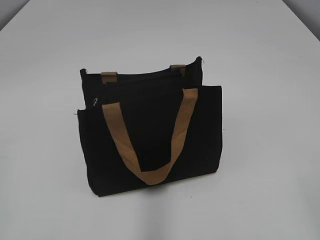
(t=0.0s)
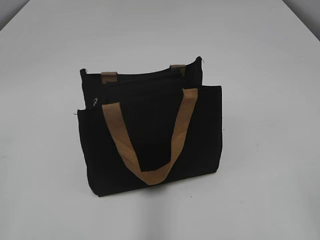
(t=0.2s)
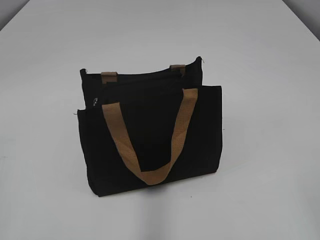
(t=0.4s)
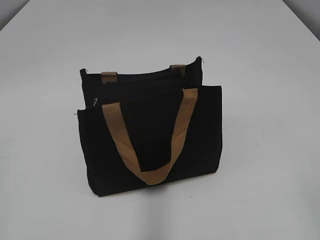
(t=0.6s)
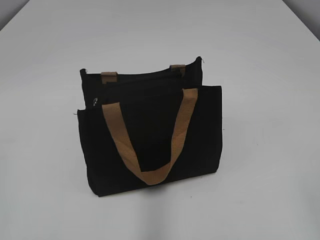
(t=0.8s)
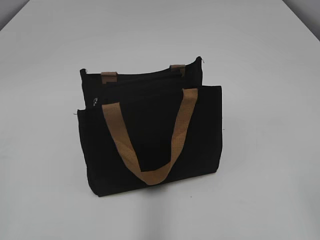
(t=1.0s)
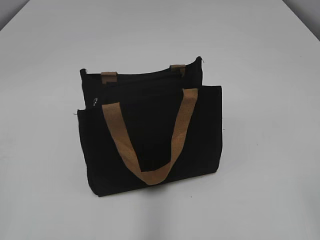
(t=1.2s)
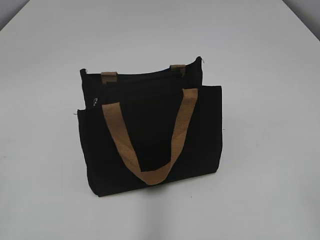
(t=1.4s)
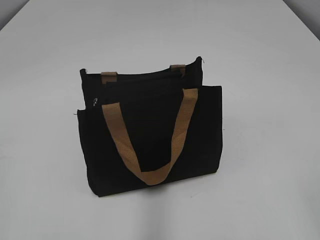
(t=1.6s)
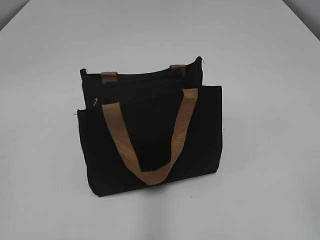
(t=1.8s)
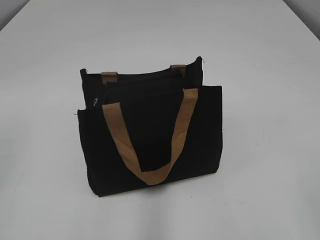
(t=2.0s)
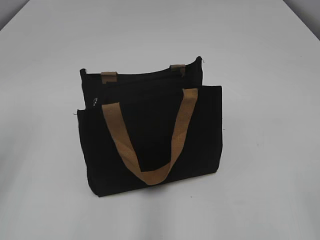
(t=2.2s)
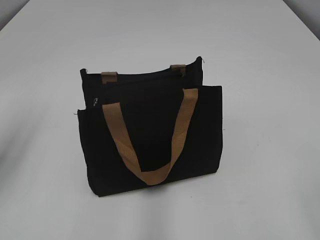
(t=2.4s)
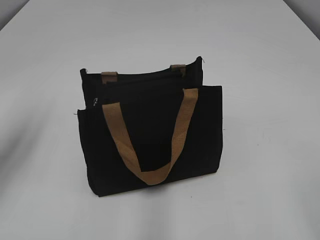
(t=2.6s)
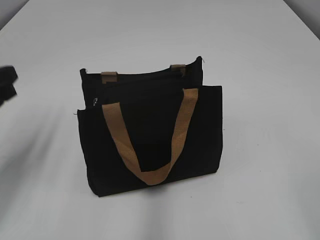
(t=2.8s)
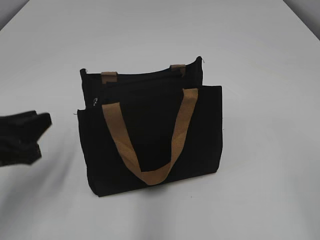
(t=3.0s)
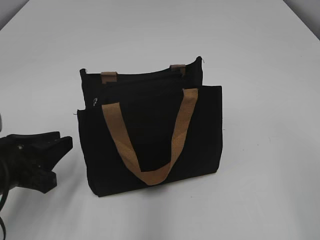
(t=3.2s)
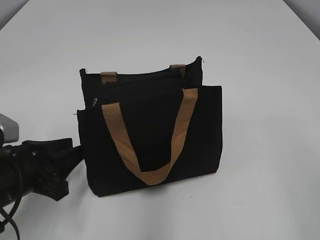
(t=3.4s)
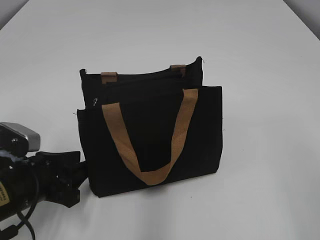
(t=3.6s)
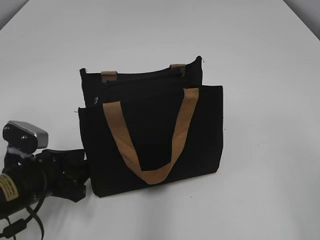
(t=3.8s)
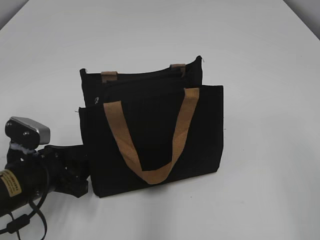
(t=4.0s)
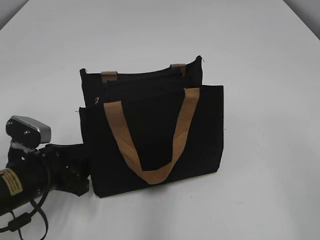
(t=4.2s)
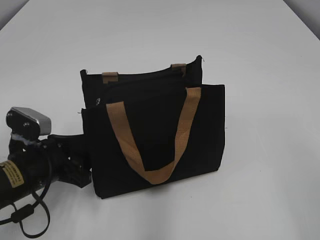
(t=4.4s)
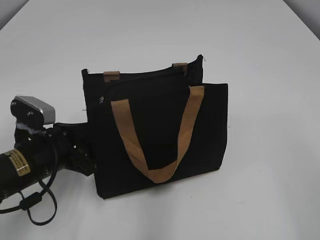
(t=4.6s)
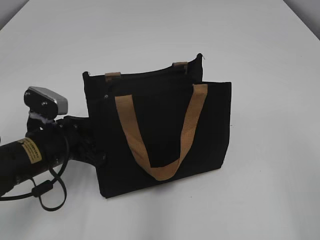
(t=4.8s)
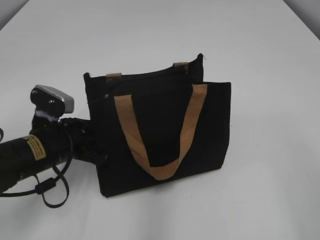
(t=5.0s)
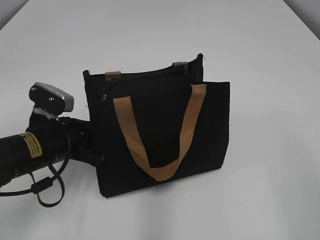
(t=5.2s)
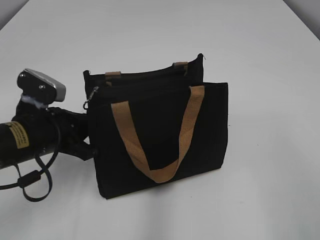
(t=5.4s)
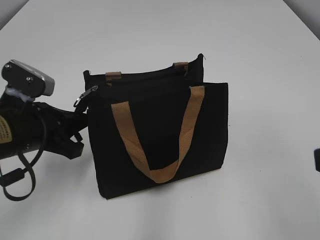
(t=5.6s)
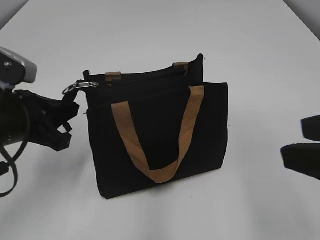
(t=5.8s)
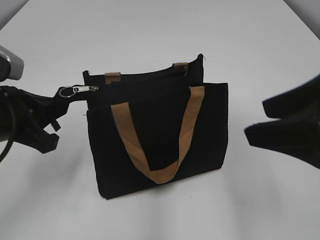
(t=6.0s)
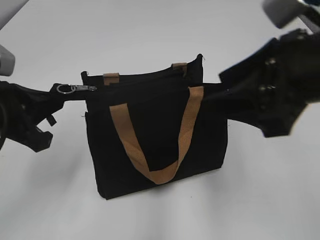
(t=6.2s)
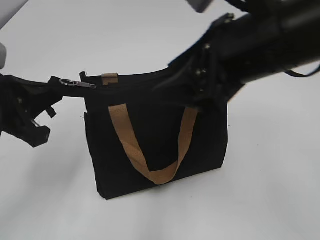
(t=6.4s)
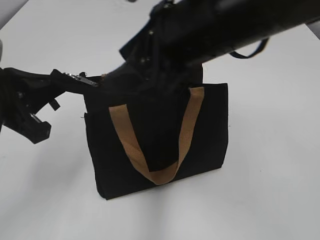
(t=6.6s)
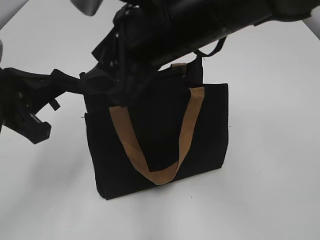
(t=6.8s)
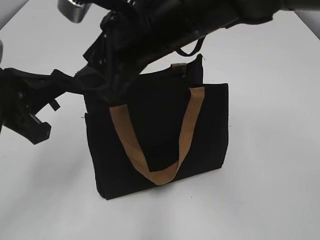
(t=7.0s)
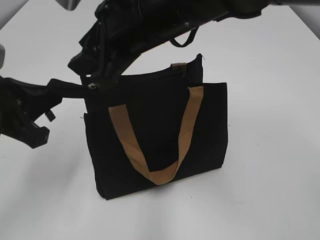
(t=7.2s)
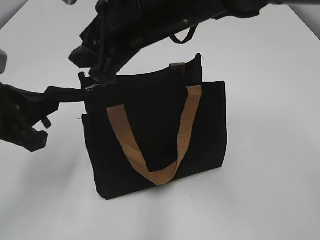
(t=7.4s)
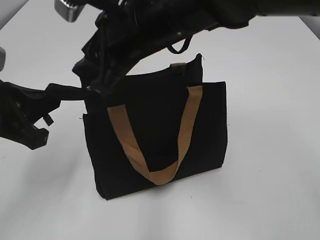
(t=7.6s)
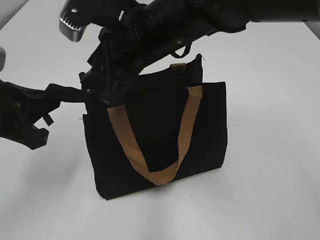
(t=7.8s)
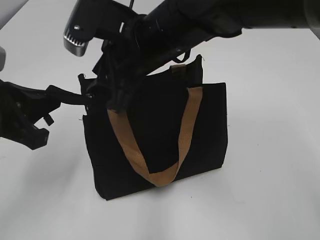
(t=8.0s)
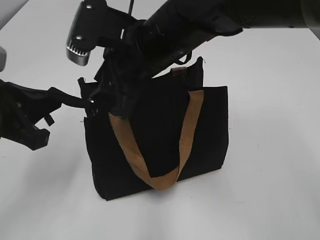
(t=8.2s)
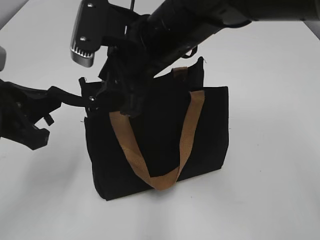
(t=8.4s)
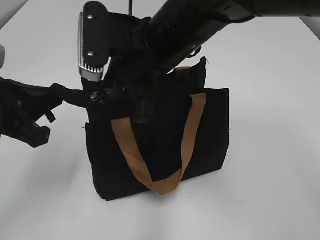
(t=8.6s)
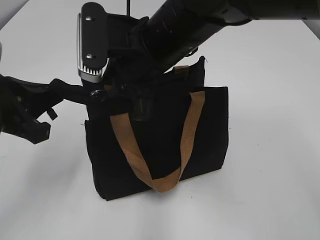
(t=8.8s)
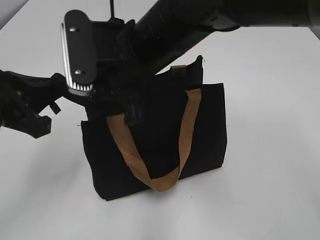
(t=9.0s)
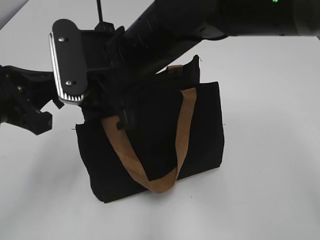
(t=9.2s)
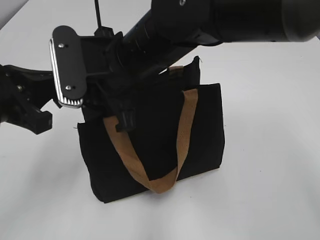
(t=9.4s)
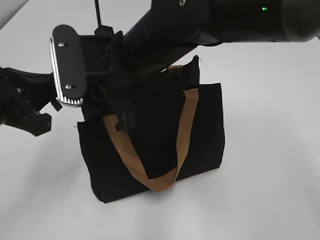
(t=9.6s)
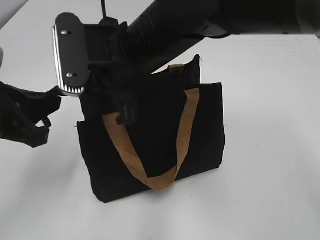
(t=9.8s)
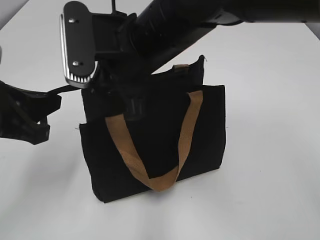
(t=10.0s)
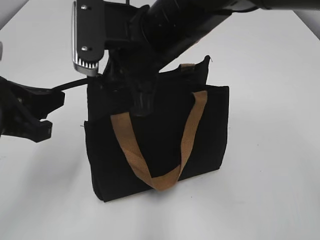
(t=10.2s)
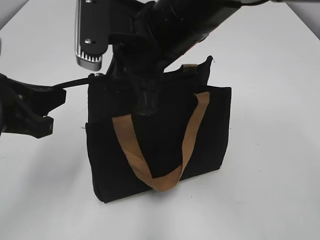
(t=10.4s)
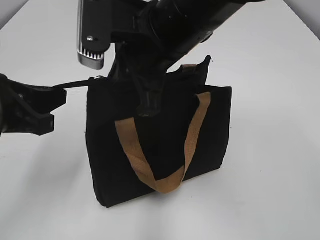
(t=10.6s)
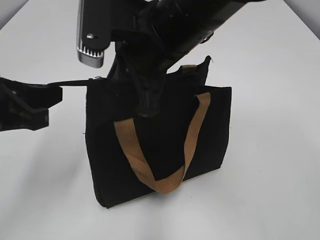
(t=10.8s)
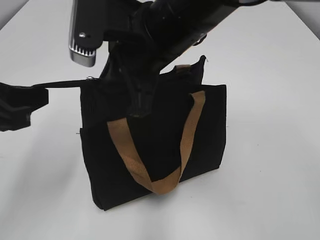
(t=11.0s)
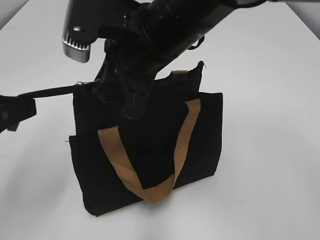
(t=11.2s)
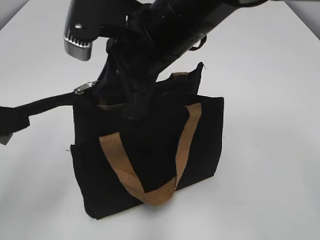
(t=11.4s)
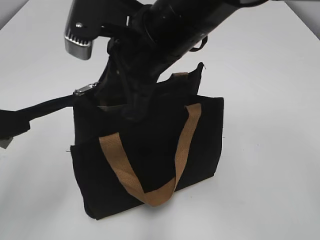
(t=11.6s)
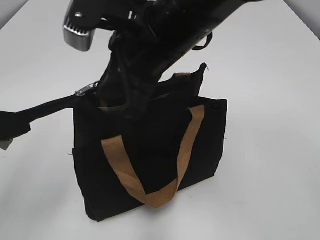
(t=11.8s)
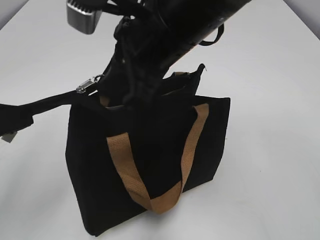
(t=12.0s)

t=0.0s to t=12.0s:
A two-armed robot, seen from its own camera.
t=1.6s to t=3.0s: The left gripper heads forward and downward, covering some 20 cm.
t=3.0s to t=4.4s: The left gripper goes roughly 5 cm downward.
t=4.4s to t=6.0s: The left gripper goes approximately 10 cm upward, and closes, while the right gripper travels forward and to the left by approximately 10 cm.
t=6.0s to t=7.6s: The right gripper is displaced to the left and forward by about 25 cm.
t=9.0s to t=10.4s: The right gripper closes its fingers.
t=10.4s to t=12.0s: The left gripper travels backward by about 5 cm.

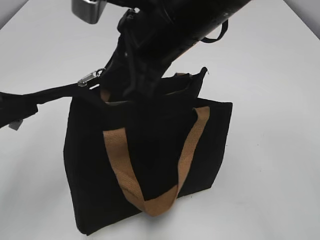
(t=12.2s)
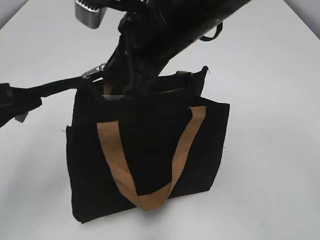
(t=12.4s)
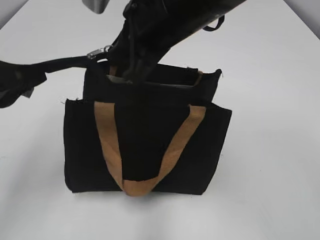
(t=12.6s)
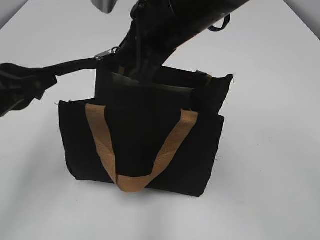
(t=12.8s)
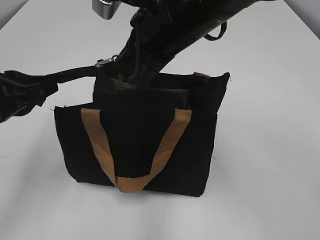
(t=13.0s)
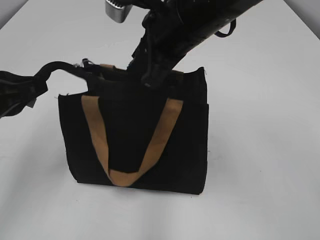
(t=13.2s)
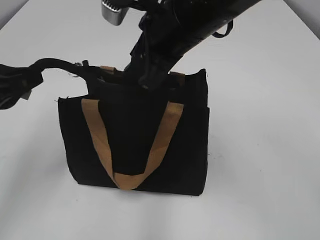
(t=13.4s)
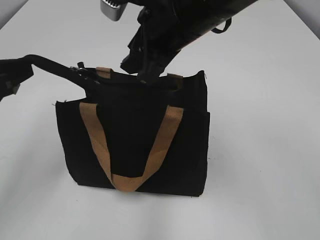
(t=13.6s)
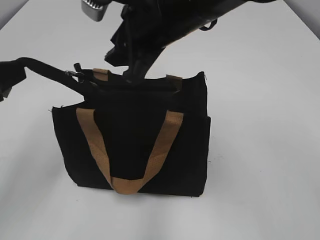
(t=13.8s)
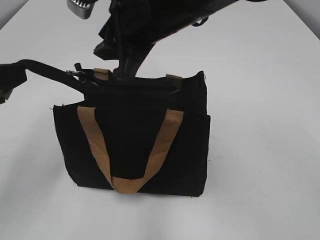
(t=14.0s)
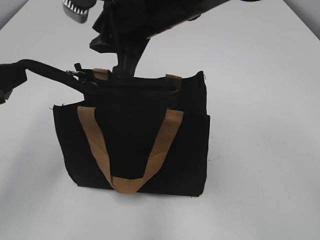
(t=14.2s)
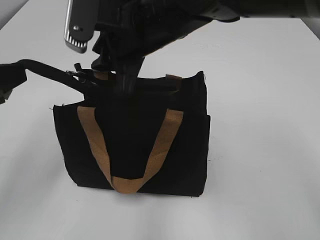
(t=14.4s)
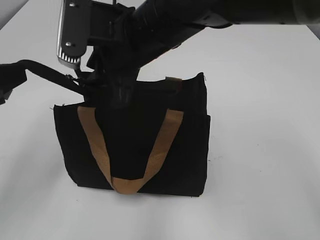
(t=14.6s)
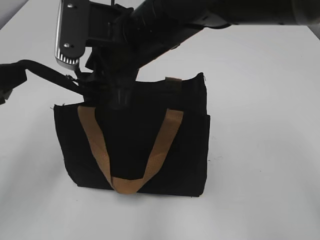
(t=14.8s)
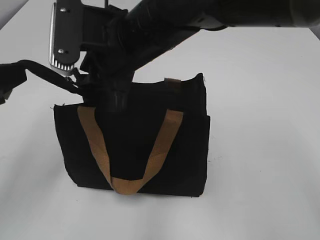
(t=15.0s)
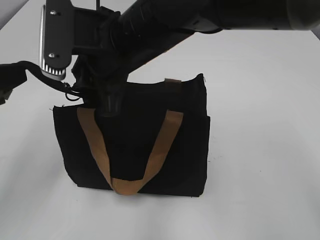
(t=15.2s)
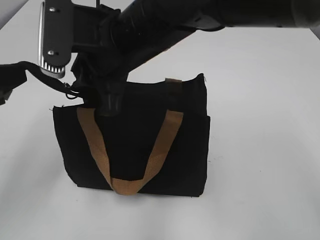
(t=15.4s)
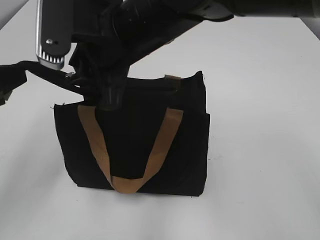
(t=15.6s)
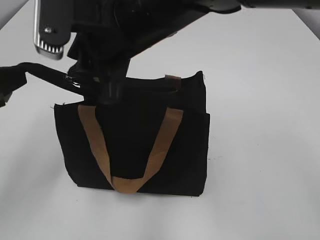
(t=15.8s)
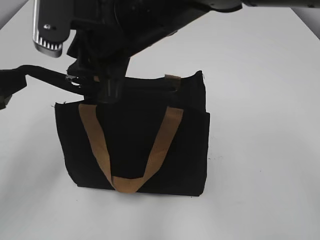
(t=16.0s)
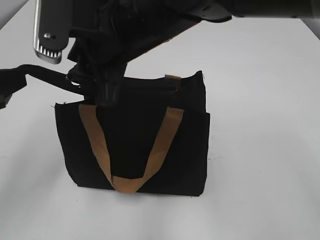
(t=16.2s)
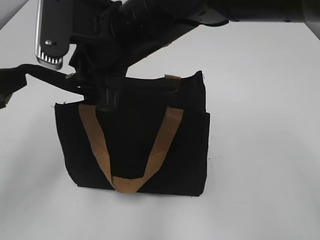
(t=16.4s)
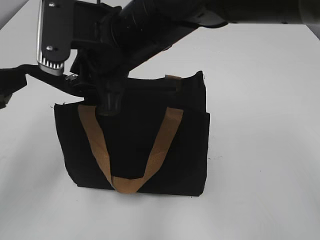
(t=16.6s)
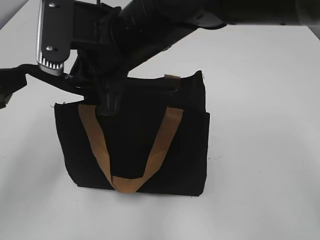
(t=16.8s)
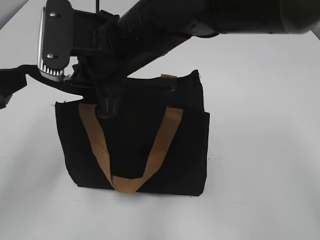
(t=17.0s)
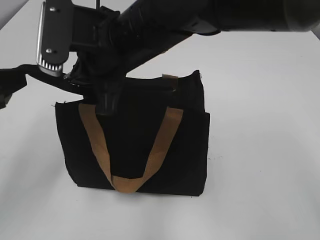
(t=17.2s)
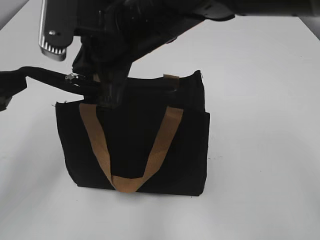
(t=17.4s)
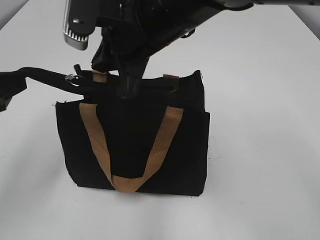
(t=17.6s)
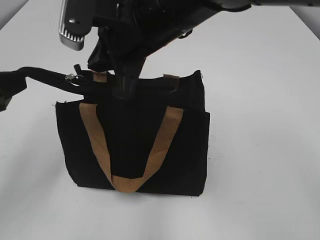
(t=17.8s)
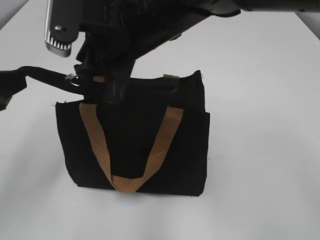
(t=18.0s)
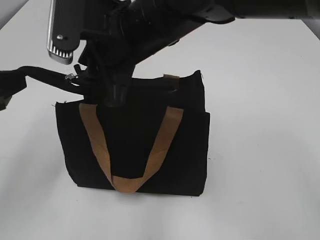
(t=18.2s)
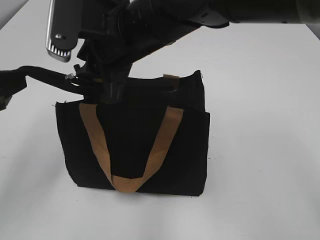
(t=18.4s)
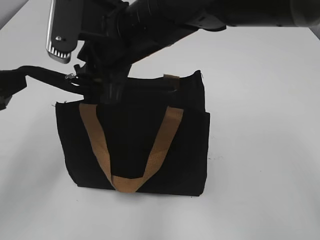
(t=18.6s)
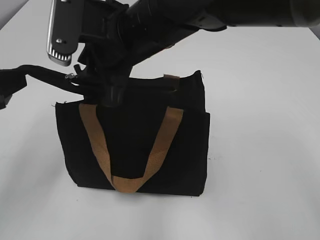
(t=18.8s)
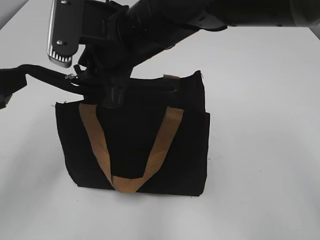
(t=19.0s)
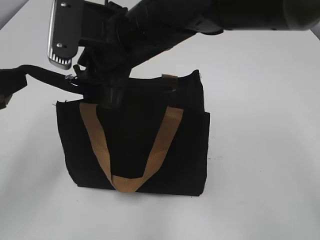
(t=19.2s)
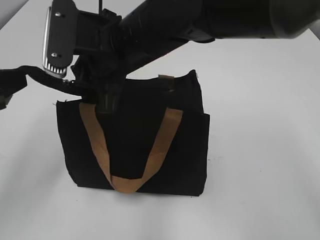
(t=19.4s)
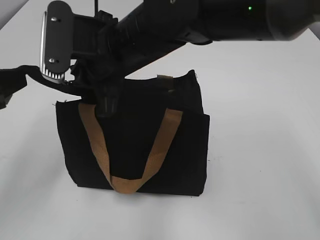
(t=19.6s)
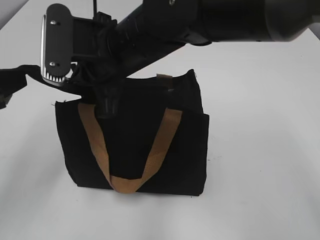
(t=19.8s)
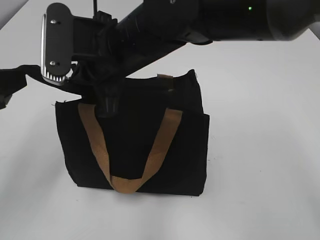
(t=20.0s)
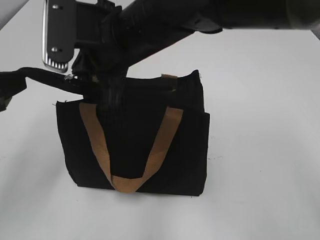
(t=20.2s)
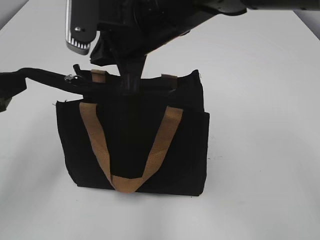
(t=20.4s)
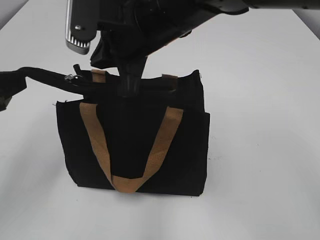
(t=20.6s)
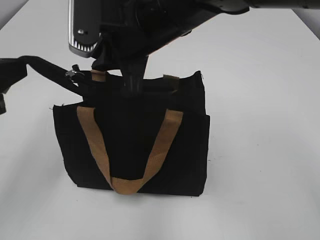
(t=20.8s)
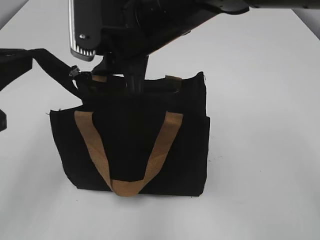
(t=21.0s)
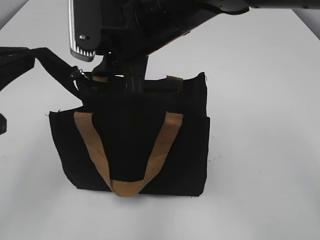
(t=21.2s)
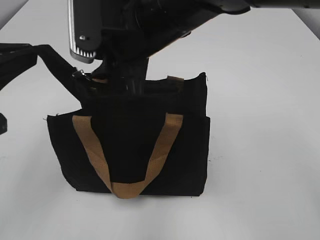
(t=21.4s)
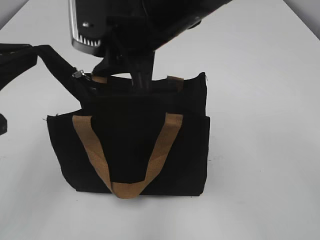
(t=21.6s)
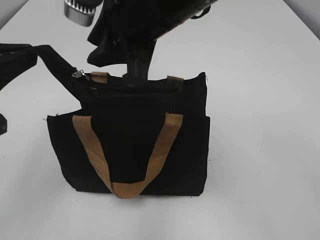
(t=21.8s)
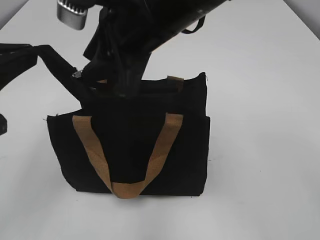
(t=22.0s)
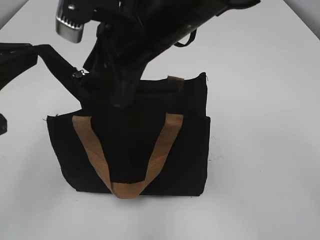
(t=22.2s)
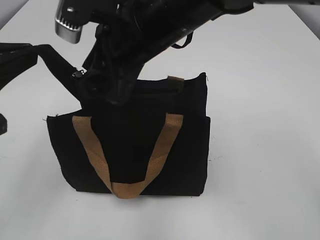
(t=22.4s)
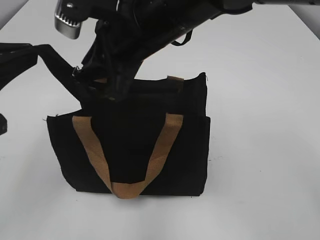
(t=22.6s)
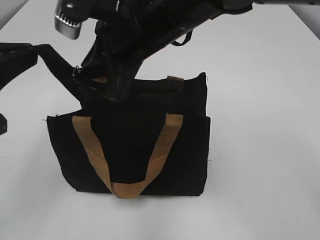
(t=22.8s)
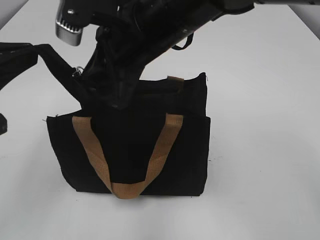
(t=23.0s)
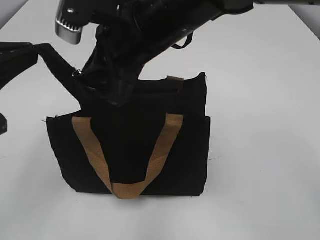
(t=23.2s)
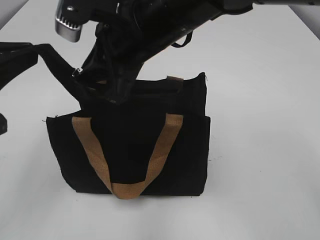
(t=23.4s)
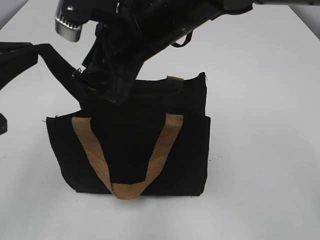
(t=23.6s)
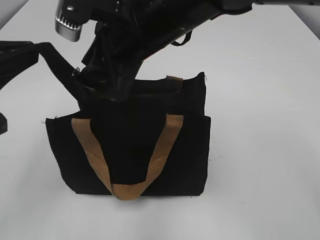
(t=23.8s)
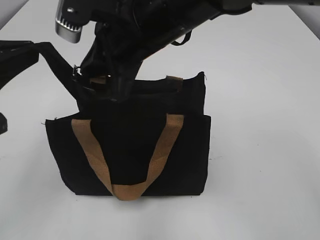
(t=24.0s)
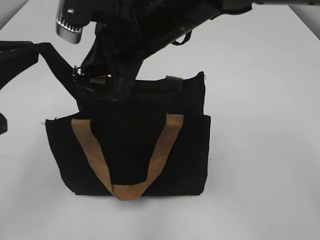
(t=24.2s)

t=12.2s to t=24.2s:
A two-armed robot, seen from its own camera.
t=12.2s to t=13.8s: The right gripper opens.
t=13.8s to t=15.2s: The right gripper goes approximately 5 cm to the left.
t=15.2s to t=16.6s: The grippers make only small movements.
t=16.6s to t=18.2s: The right gripper closes, then opens again.
t=18.2s to t=19.8s: The right gripper closes.
t=19.8s to t=21.2s: The right gripper opens up.
t=22.6s to t=24.2s: Both grippers stay put.
